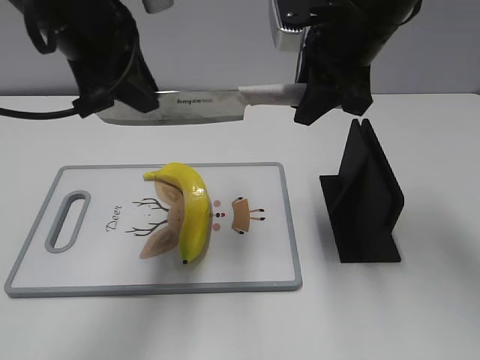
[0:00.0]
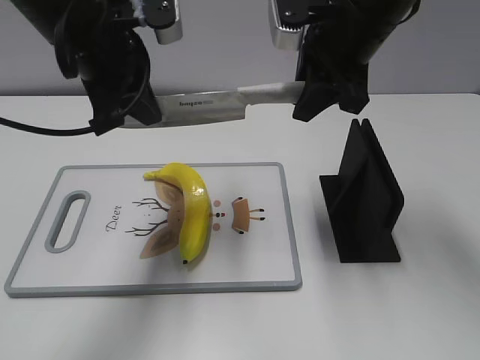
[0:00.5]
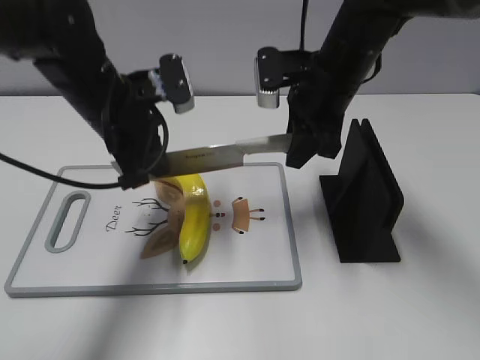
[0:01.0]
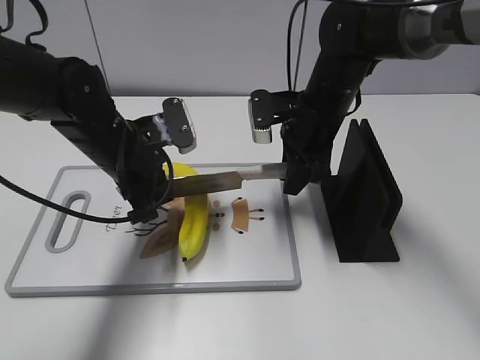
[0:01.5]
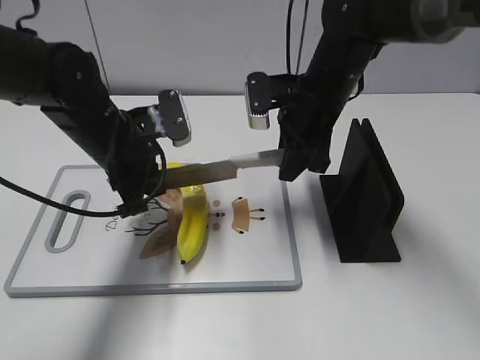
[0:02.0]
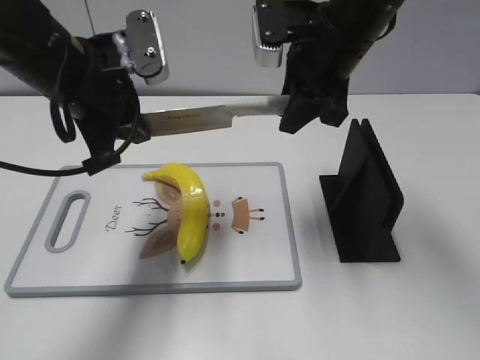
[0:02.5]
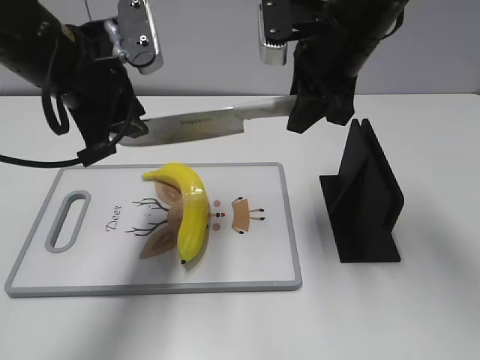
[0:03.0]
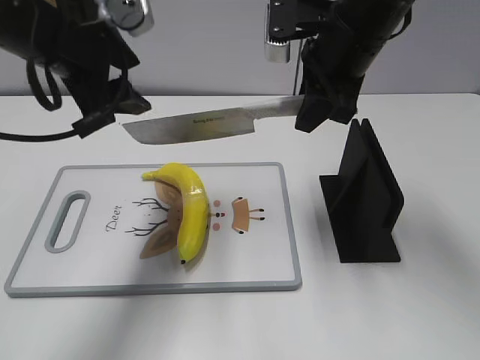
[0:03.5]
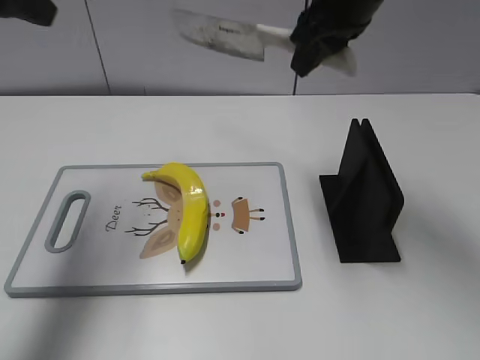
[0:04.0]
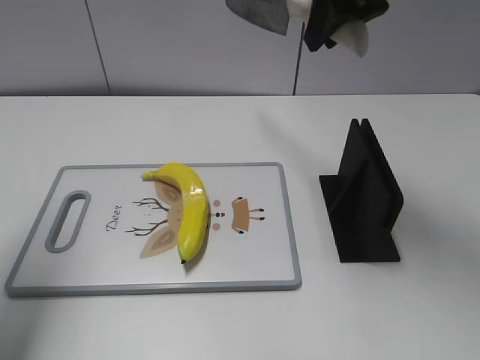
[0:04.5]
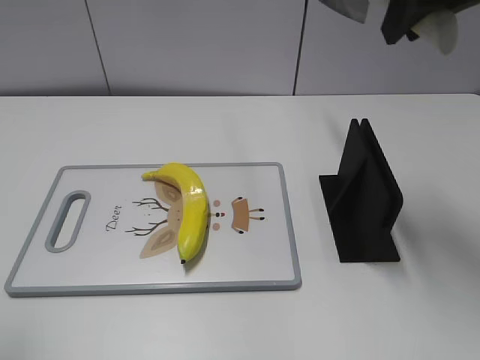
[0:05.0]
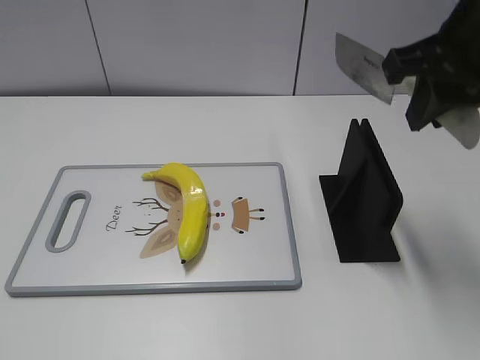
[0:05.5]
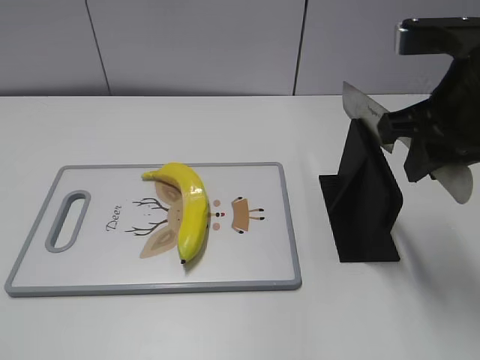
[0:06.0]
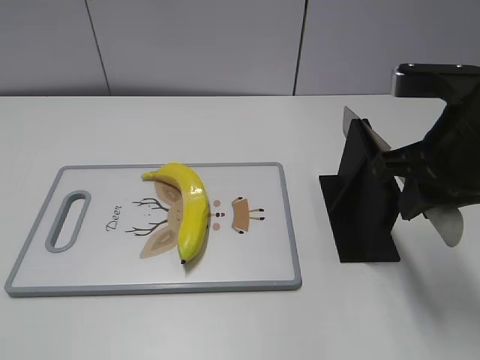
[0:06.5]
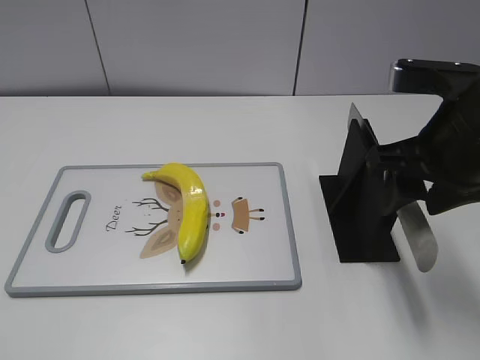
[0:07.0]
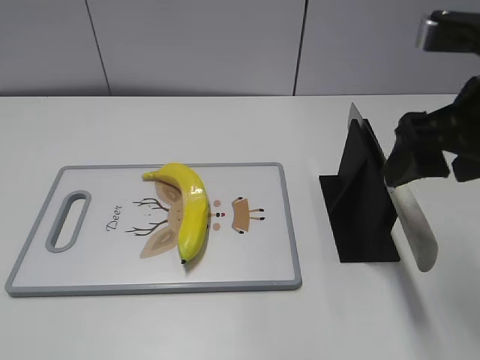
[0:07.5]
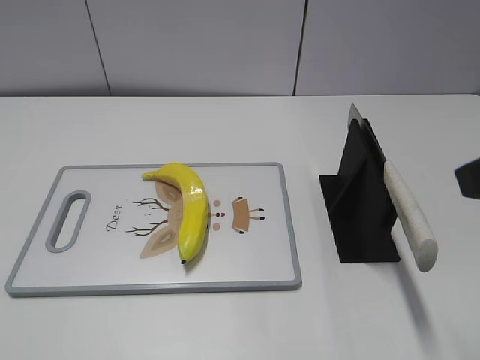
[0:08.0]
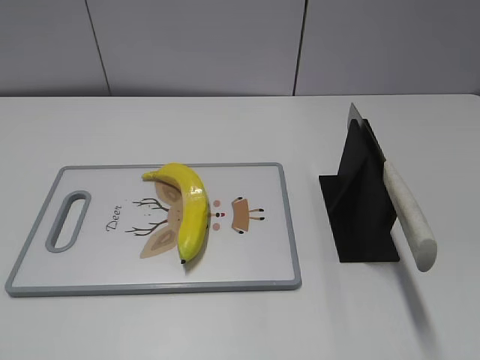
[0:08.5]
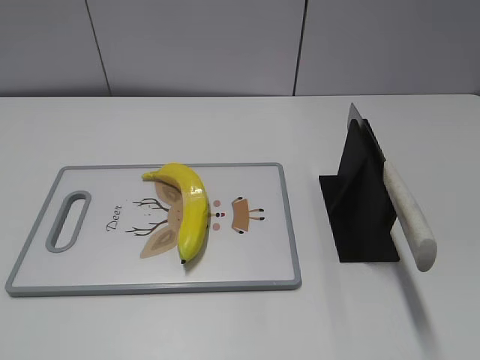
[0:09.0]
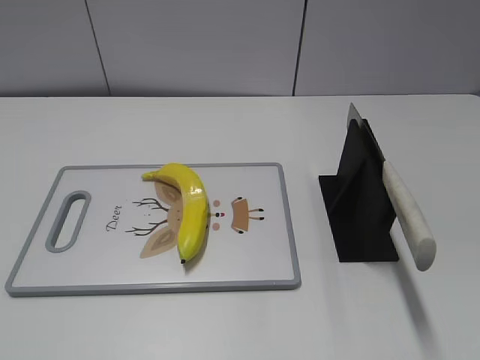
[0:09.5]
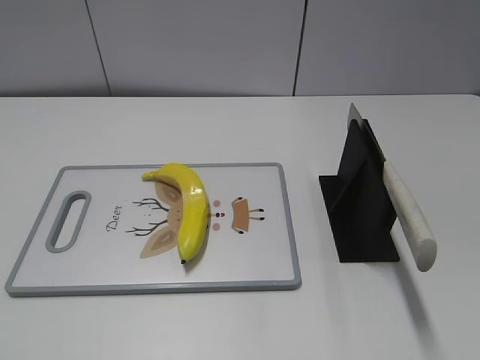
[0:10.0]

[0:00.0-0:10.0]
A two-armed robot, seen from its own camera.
Task of the whole recording: cut plastic banana.
Step, 0:00.0 to 0:02.5: Lift the knife with your right hand.
Step, 0:03.0 to 0:04.0: Cut the banana with your left hand.
Step, 0:04.5 to 0:05.0: Lift the knife with your right hand.
Step, 0:05.5 to 0:10.0: Place the knife on the storage rack with your right hand.
0:00.0 to 0:02.0: The grippers both shift downward by some 15 cm.
0:02.0 to 0:04.0: The left gripper shifts some 25 cm upward and to the left, and opens. The right gripper travels upward by roughly 15 cm.
0:04.0 to 0:06.0: The right gripper moves backward and to the right, about 15 cm. The left gripper is displaced backward by about 30 cm.
0:06.0 to 0:08.0: The right gripper is displaced backward by some 10 cm, and opens.

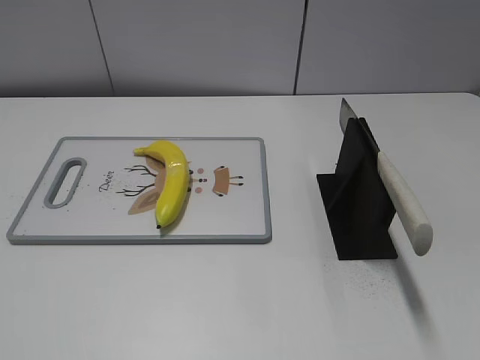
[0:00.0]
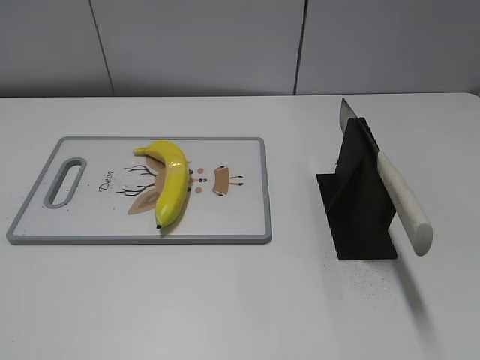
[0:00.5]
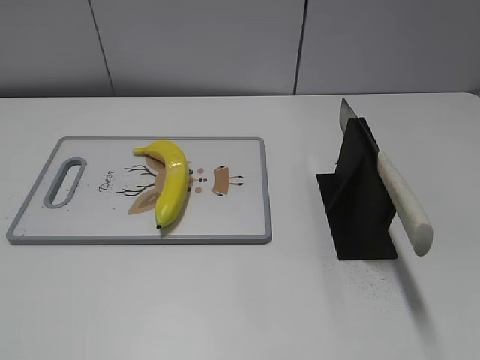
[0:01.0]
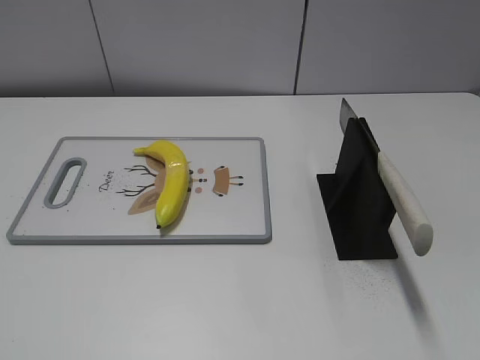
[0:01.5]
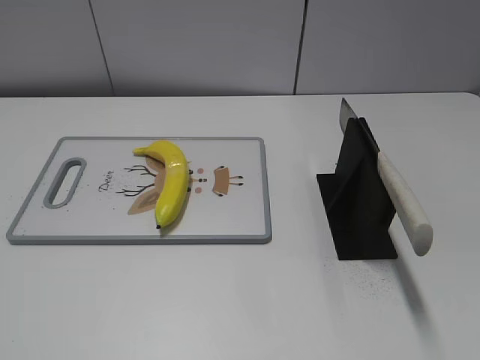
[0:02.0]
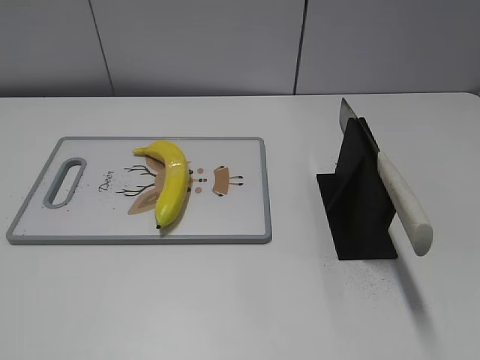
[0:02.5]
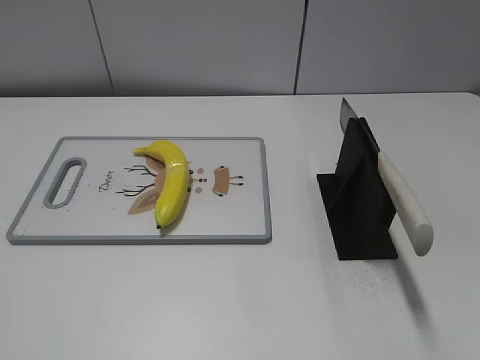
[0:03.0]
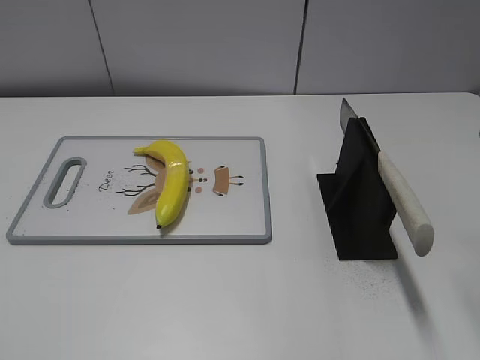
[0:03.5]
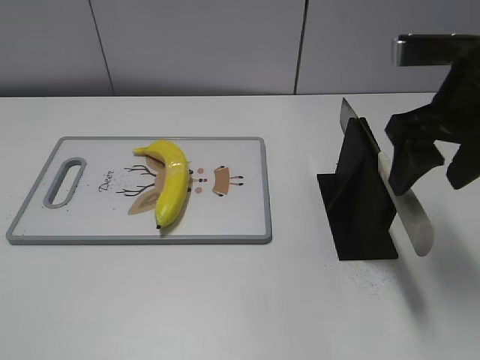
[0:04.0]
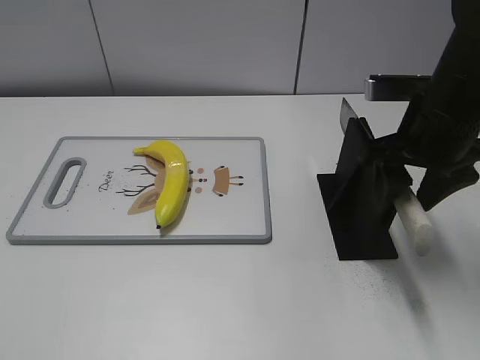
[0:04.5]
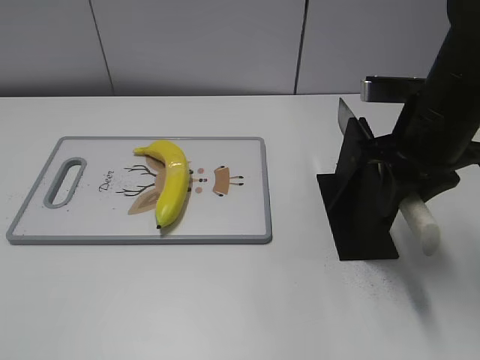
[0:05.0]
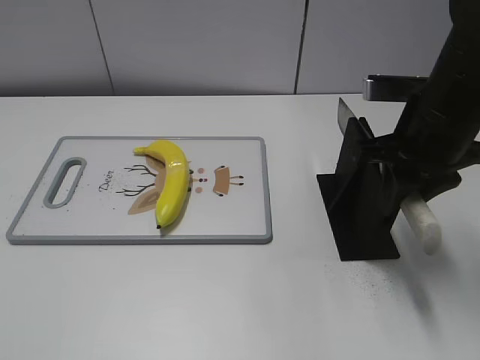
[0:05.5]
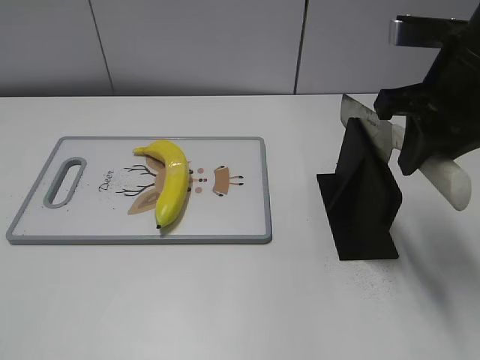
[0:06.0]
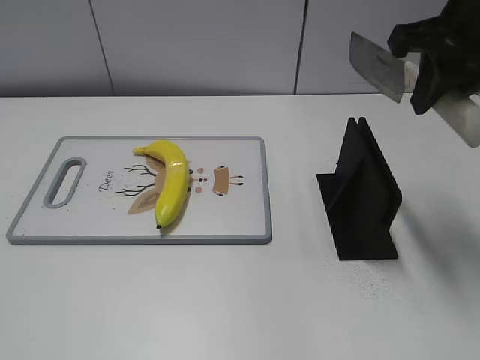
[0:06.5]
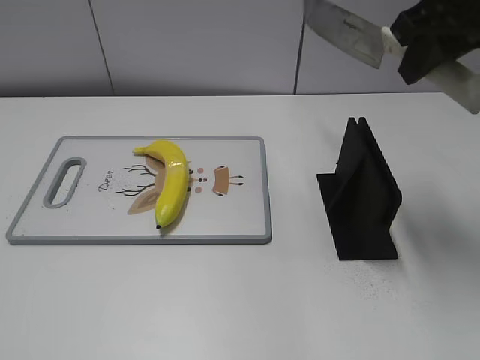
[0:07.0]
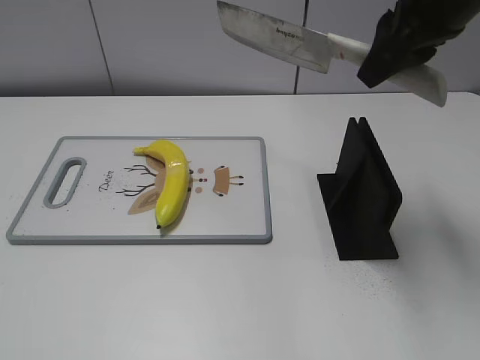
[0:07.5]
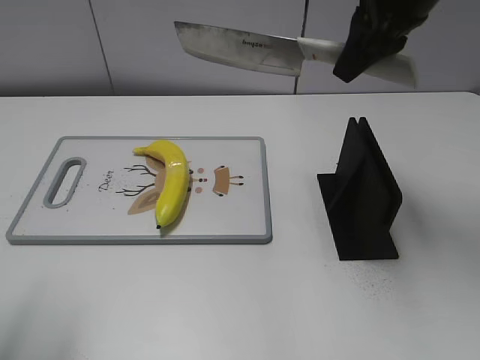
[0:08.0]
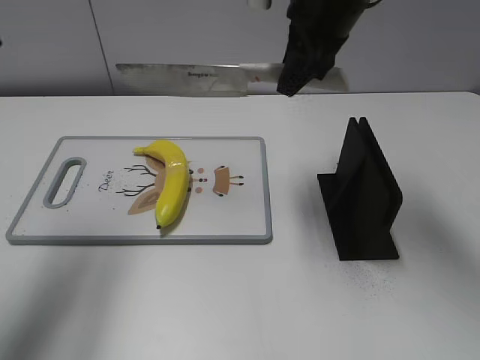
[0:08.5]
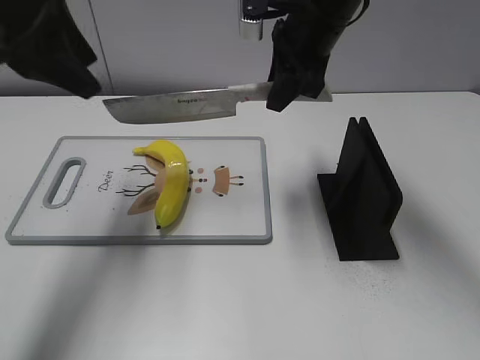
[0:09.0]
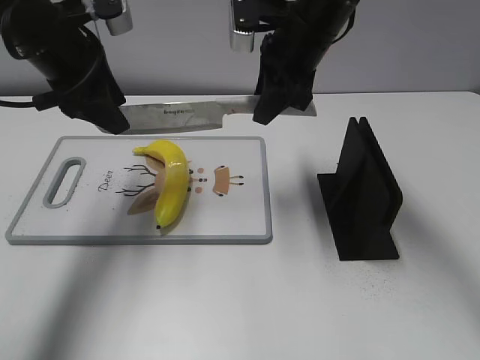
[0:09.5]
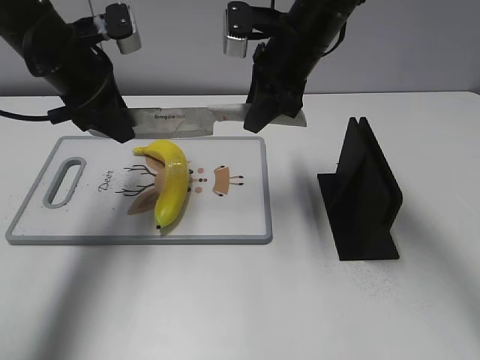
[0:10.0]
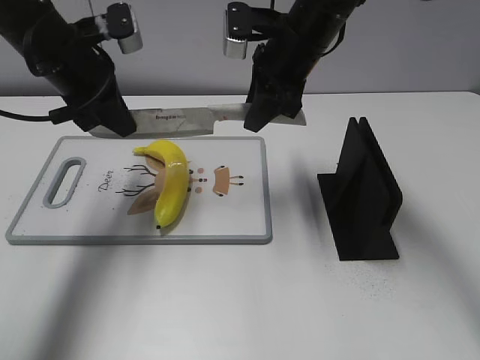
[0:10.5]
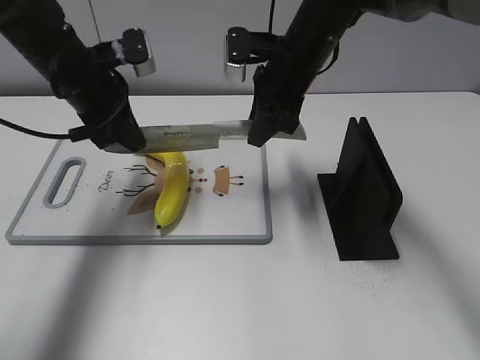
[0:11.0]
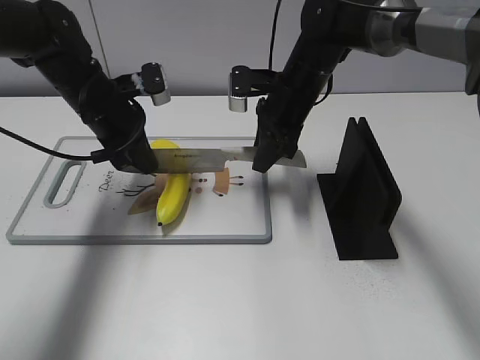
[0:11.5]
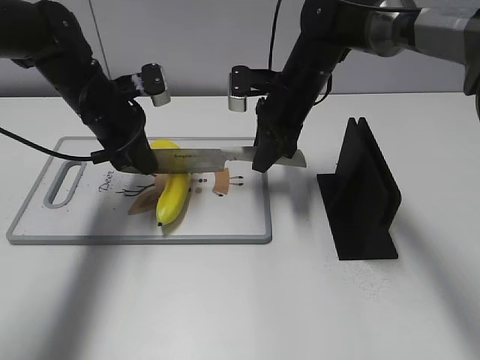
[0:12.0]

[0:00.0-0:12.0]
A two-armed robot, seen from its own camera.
Task of the whole recording: cut plastic banana.
Step, 0:00.0 to 0:06.0: Grab the knife handle with your right hand.
0:02.0 to 0:04.0: The right gripper is displaced forward by about 30 cm.
0:04.0 to 0:06.0: The right gripper closes its fingers.
0:06.0 to 0:08.0: The right gripper travels forward and upward by approximately 10 cm; the left gripper shifts about 15 cm forward and upward.
0:08.0 to 0:10.0: The right gripper shifts about 15 cm downward, to the left and forward, while the left gripper moves forward, roughly 25 cm.
0:10.0 to 0:12.0: Both grippers move downward, some 10 cm. The left gripper closes its fingers.

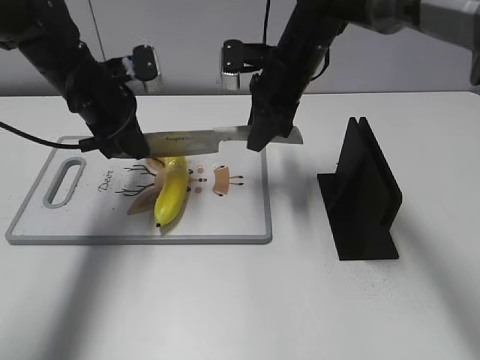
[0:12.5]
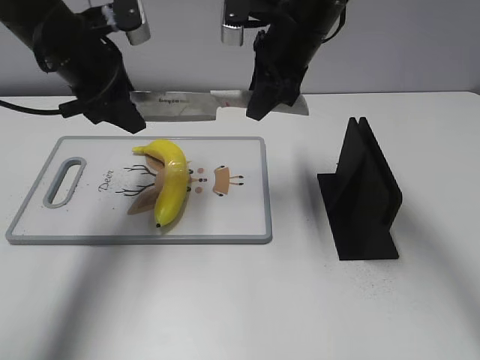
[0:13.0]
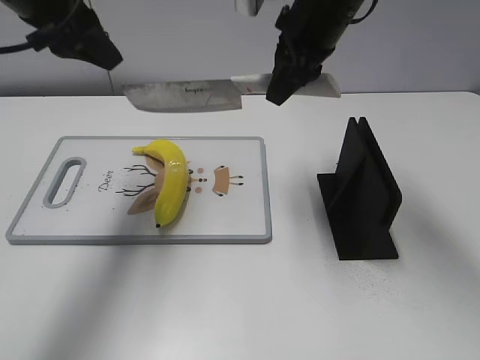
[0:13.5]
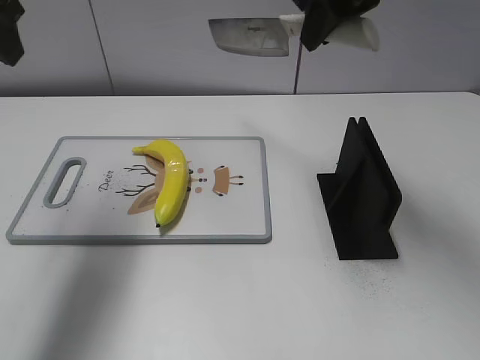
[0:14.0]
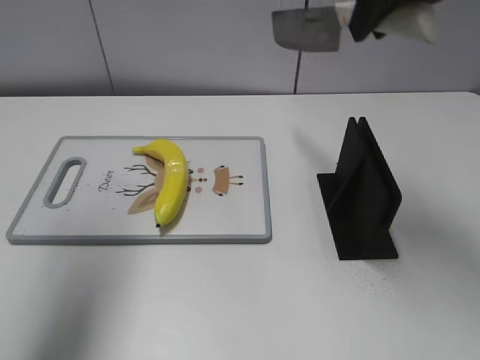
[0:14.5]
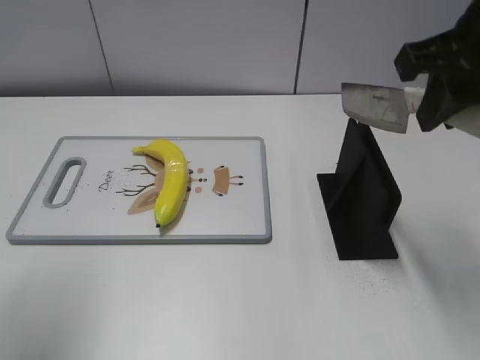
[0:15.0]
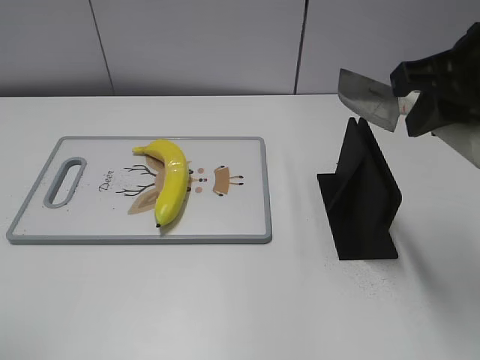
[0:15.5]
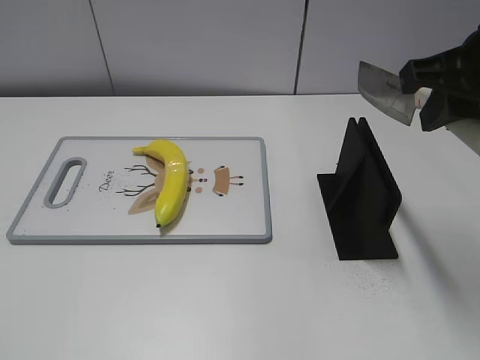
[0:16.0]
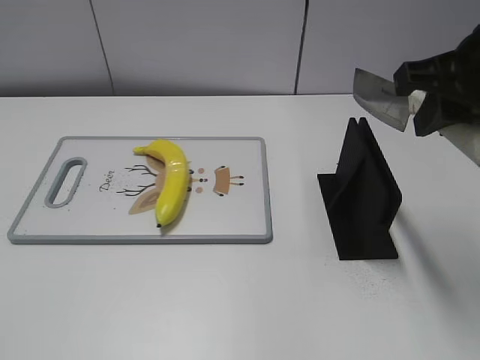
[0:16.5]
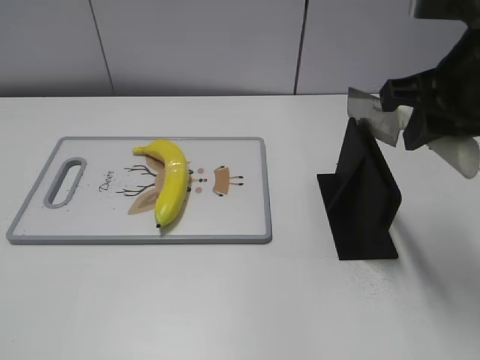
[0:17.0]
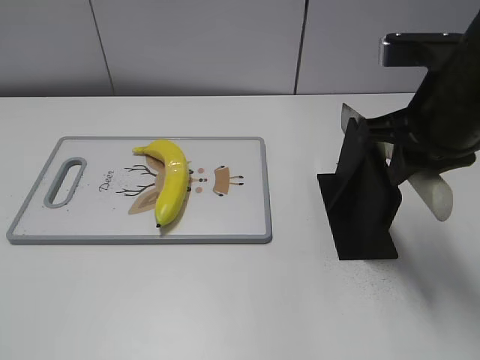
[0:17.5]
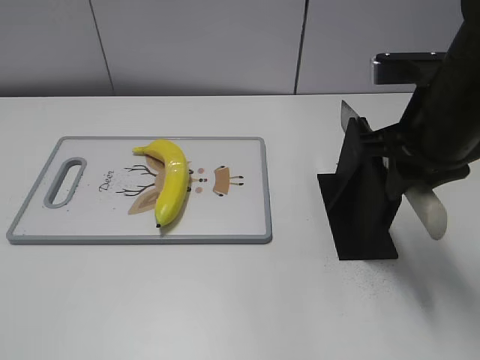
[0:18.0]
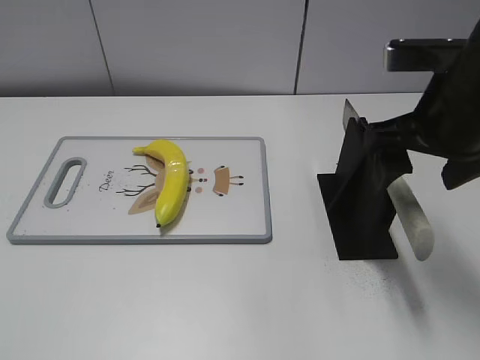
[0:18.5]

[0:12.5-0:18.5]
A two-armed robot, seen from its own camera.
Task of the whole recording: cut plastic banana.
Step, 0:13.0 to 0:15.0: Cut the banana with your right hand.
0:12.5 to 0:14.5: The two grippers go about 25 cm upward and backward. The left gripper opens up.
0:14.5 to 0:16.5: The right gripper moves backward, downward and to the right, approximately 10 cm, while the left gripper shifts some 30 cm backward and downward.
0:16.5 to 0:18.5: The right gripper travels downward by about 5 cm, and opens up.
